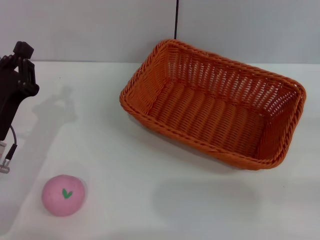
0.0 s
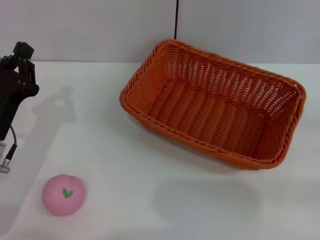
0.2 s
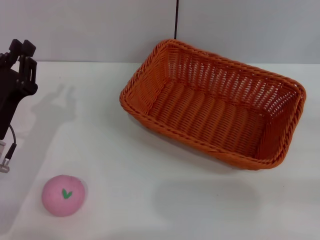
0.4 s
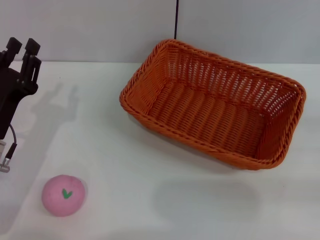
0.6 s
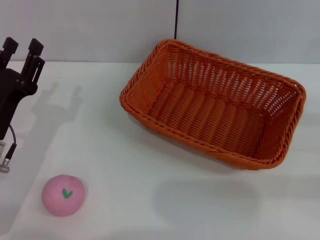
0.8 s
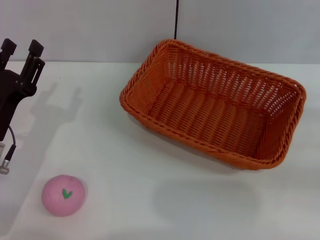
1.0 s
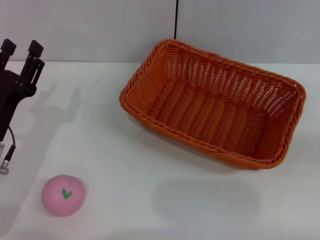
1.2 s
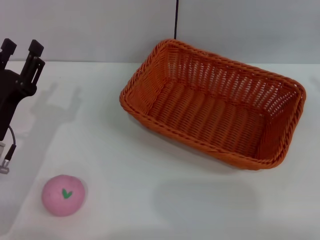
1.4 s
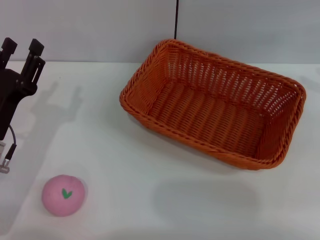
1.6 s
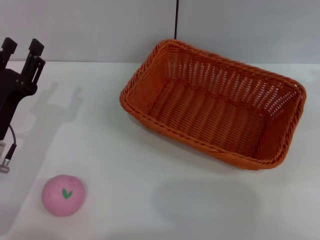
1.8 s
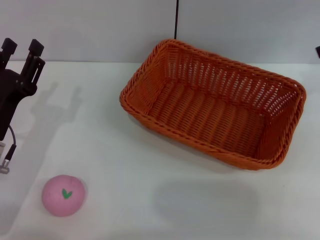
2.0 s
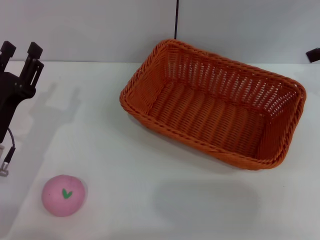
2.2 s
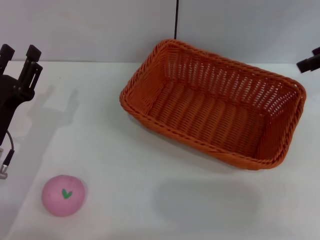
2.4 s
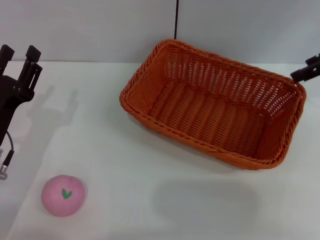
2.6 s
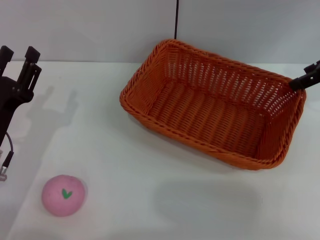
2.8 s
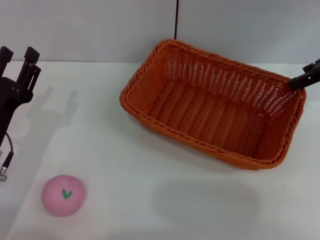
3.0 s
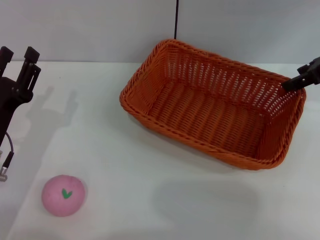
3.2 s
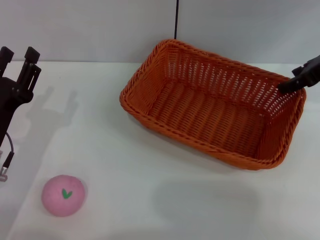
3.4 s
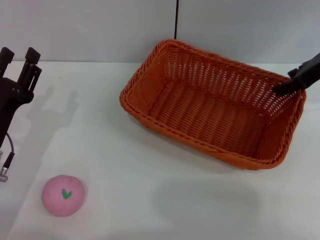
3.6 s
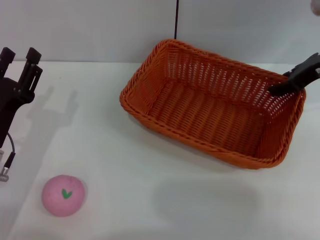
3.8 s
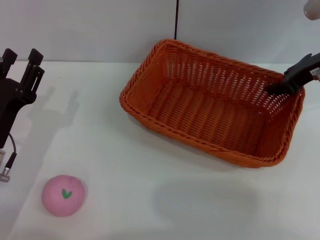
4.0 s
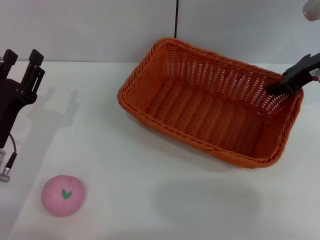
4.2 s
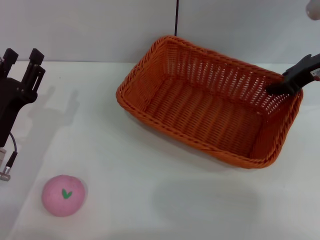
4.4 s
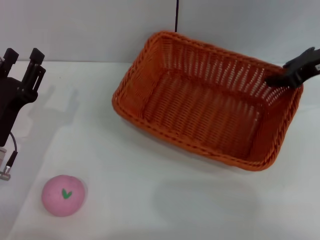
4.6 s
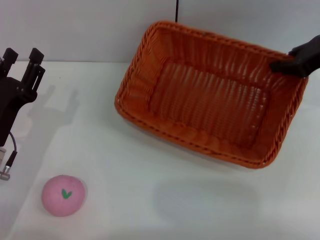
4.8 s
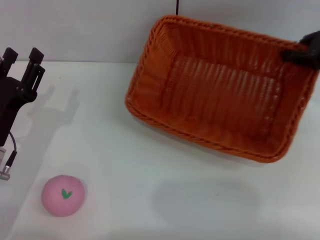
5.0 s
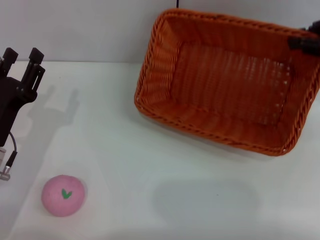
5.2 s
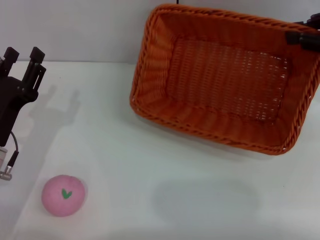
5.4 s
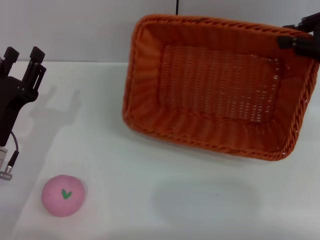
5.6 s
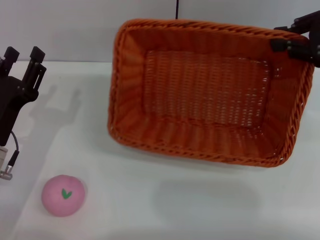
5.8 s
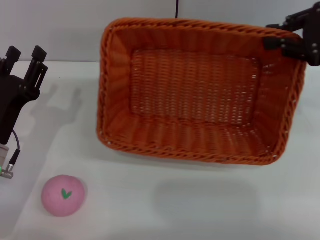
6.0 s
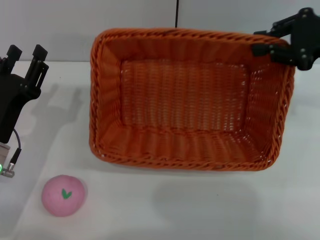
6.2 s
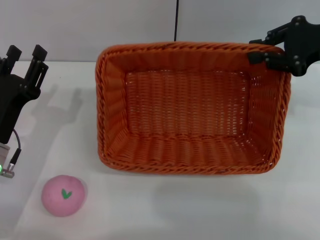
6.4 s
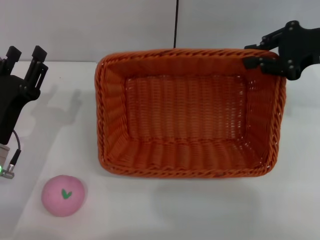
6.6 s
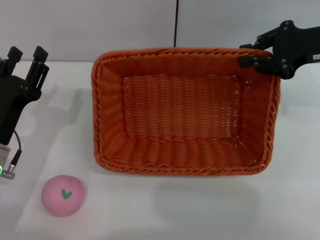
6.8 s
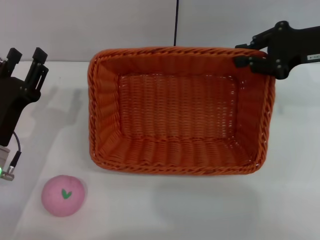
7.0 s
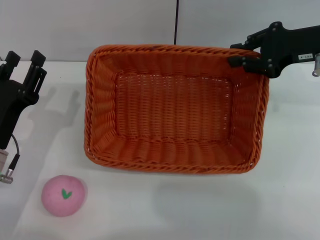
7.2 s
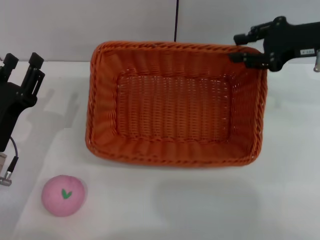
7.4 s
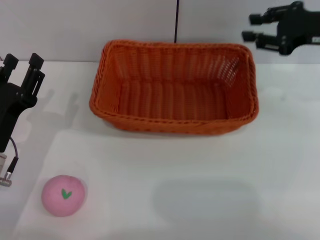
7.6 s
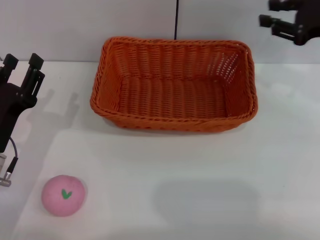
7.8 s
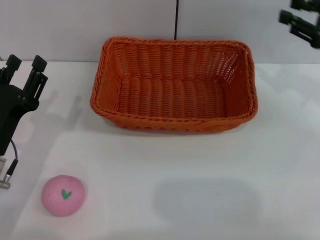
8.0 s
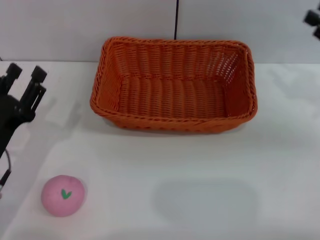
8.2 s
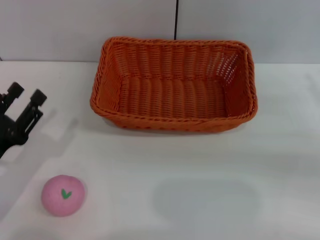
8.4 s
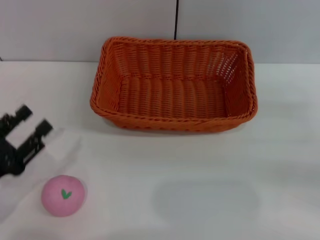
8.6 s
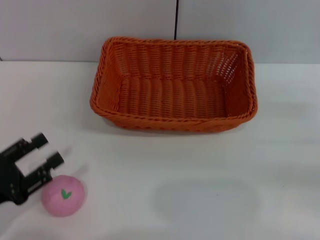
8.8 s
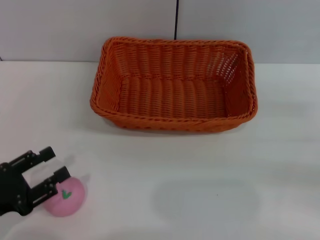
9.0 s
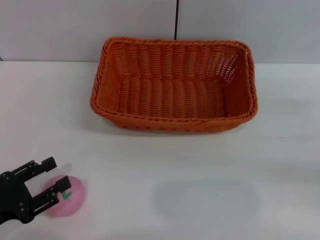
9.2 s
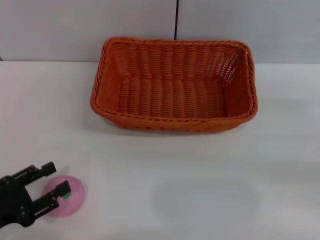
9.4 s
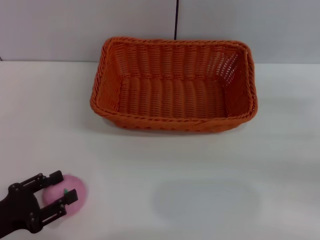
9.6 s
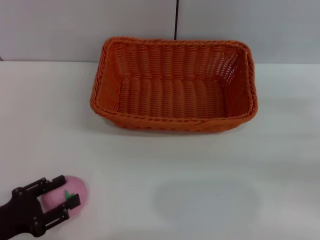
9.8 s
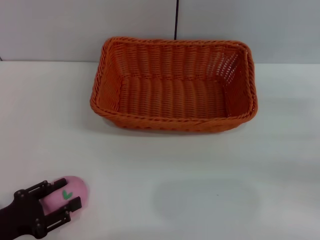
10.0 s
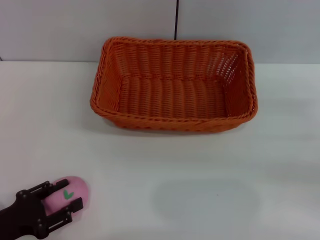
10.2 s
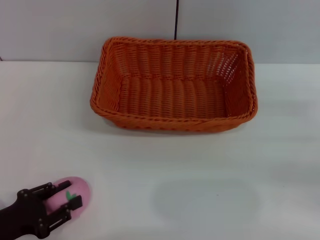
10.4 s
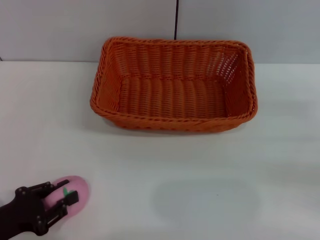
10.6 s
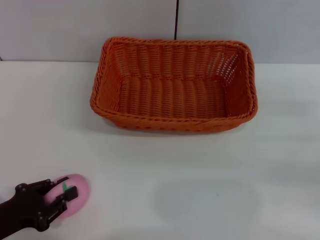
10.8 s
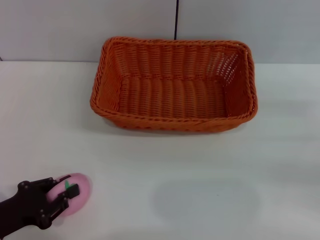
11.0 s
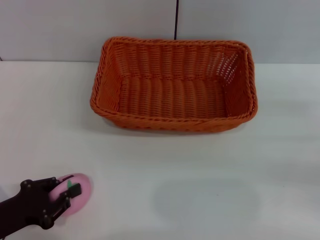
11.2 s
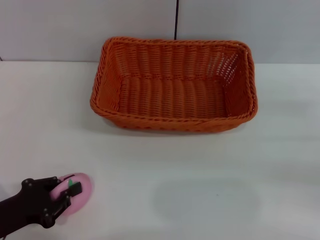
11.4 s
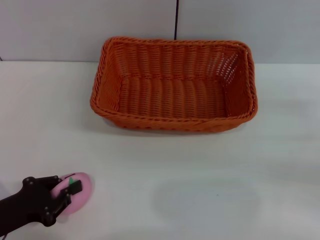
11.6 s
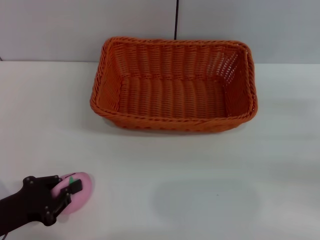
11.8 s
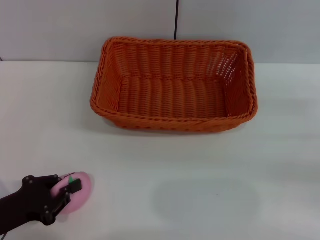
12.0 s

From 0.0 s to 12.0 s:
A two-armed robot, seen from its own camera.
Step, from 0.0 s to 4.6 s: Pick up the light basket with the right gripper.
Step, from 4.8 s to 7.6 s: Place the light basket in the center of view with the right gripper.
From 0.0 s to 1.6 s: The left gripper opens its fingers.
From 1.6 s to 3.0 s: The right gripper is displaced to the left and forward by some 10 cm.
From 3.0 s to 4.4 s: The right gripper closes.
From 4.4 s to 6.0 s: The right gripper shifts by approximately 5 cm.
From 7.6 s to 9.0 s: The left gripper shifts roughly 10 cm backward and to the left, while the right gripper travels backward, to the right and downward by approximately 20 cm.
From 9.0 s to 10.4 s: The grippers move only a little.
From 10.4 s to 12.0 s: The left gripper closes its fingers.

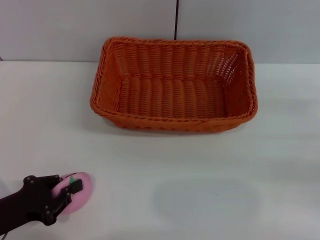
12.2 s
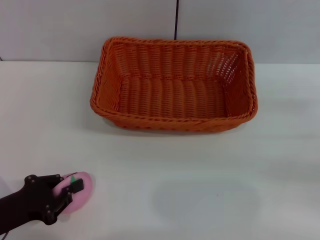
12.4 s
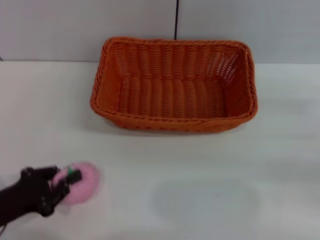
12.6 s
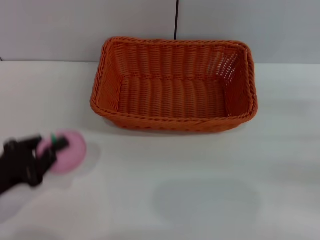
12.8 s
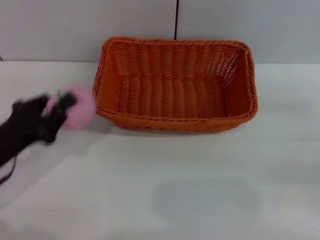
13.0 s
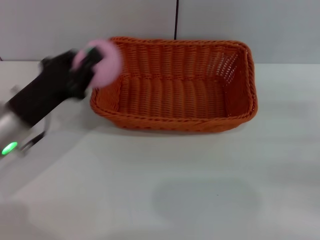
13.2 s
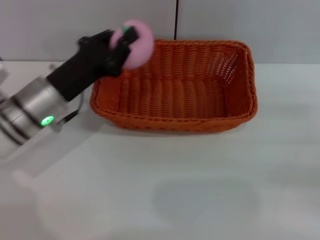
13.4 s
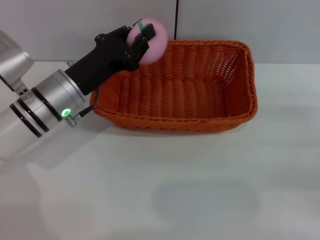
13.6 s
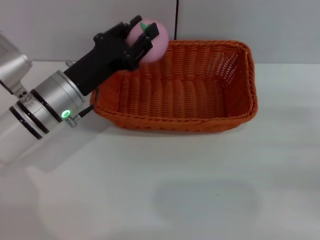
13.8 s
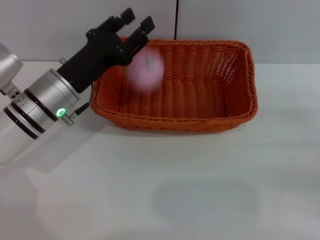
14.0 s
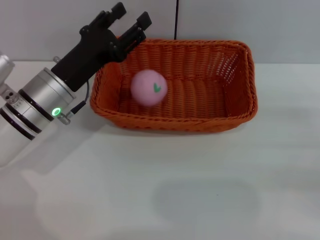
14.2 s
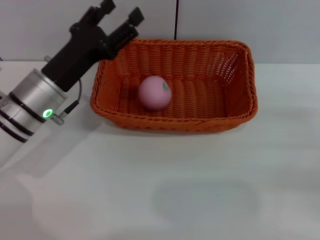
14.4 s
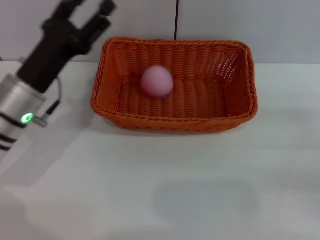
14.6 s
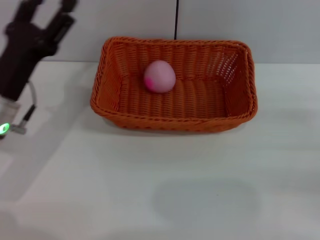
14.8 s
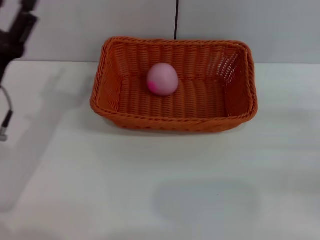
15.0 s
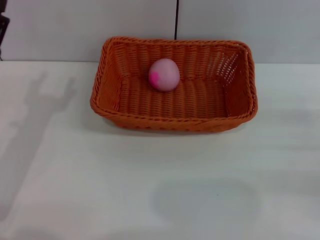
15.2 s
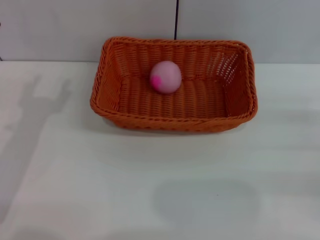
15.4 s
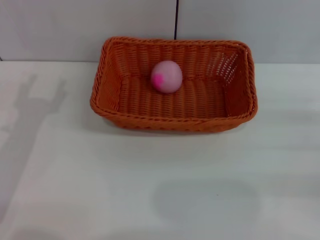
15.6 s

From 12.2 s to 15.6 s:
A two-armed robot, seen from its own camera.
Step, from 12.8 s to 14.2 s: Place the peach into the basket with the left gripper.
From 12.2 s to 13.8 s: The left gripper is displaced forward, to the right and upward by roughly 20 cm.
From 13.8 s to 15.6 s: The left gripper is displaced to the left and backward by some 15 cm, and opens its fingers.

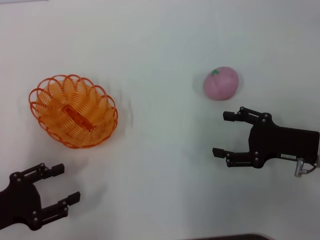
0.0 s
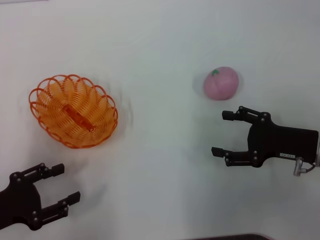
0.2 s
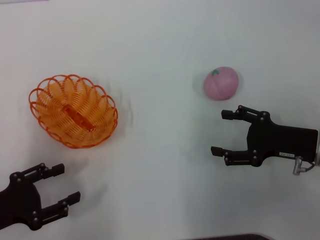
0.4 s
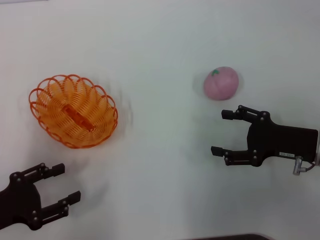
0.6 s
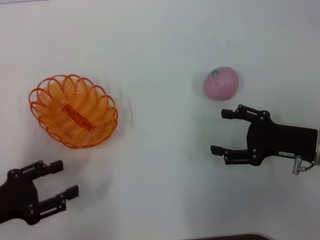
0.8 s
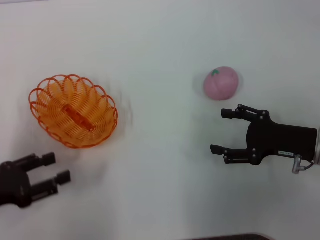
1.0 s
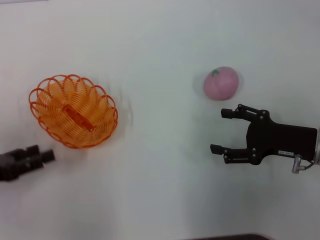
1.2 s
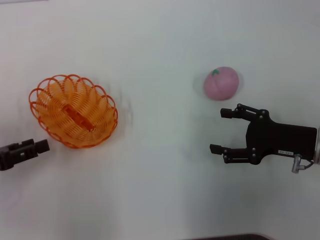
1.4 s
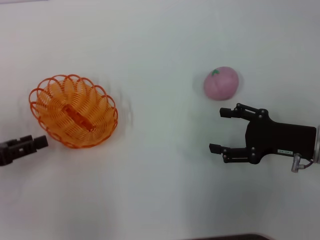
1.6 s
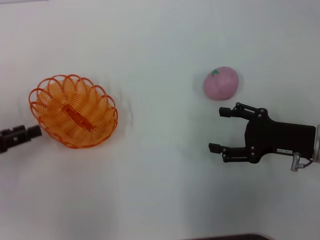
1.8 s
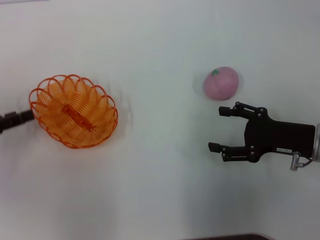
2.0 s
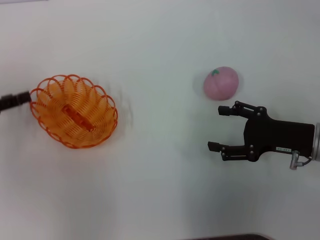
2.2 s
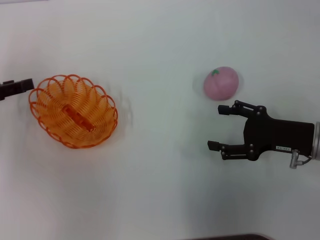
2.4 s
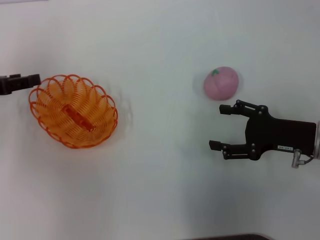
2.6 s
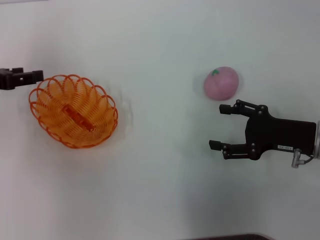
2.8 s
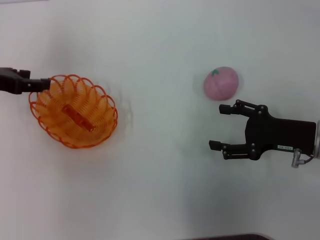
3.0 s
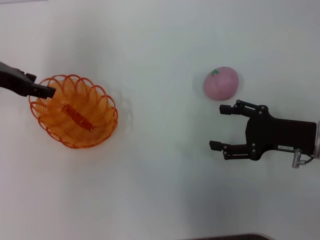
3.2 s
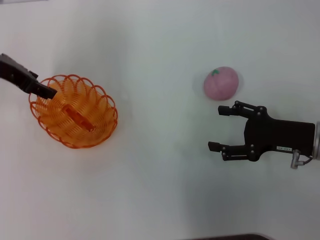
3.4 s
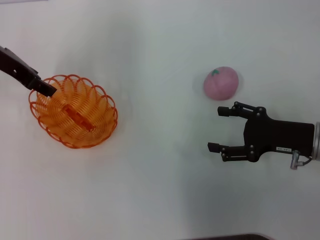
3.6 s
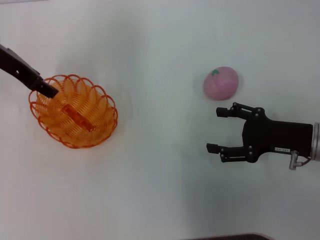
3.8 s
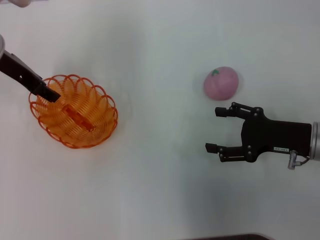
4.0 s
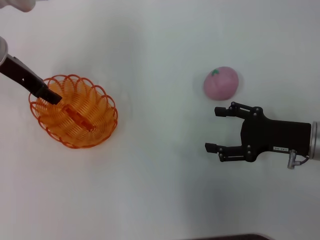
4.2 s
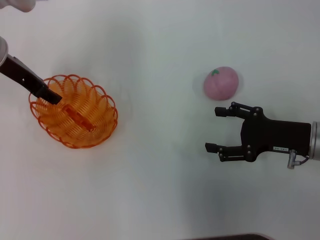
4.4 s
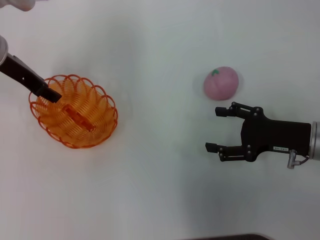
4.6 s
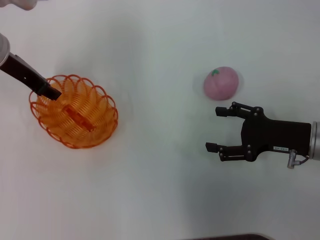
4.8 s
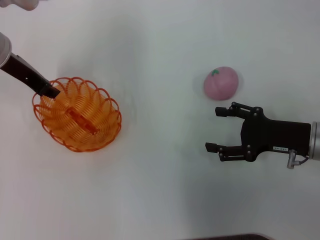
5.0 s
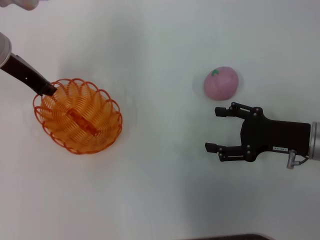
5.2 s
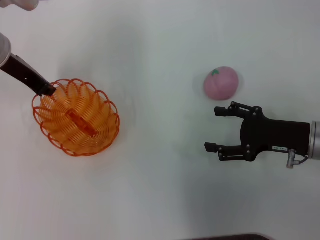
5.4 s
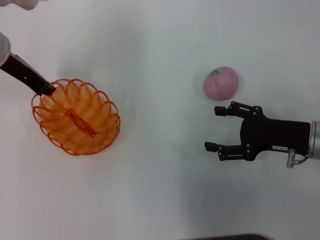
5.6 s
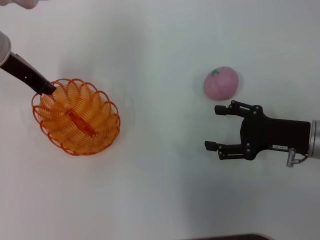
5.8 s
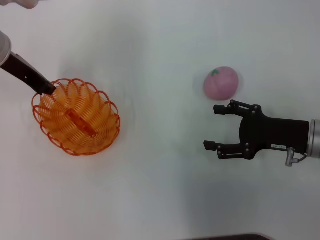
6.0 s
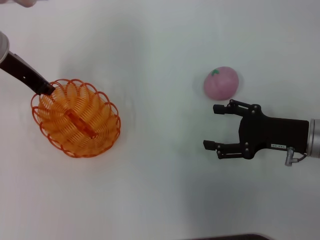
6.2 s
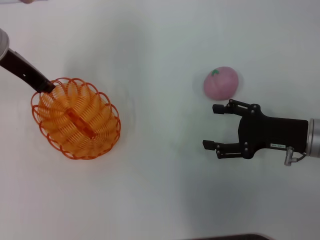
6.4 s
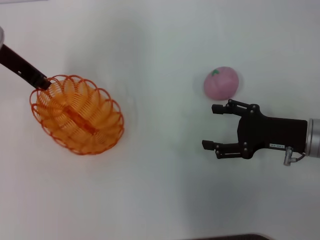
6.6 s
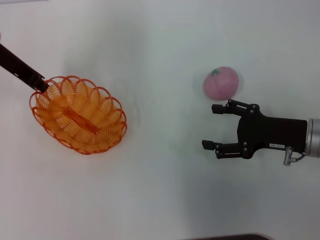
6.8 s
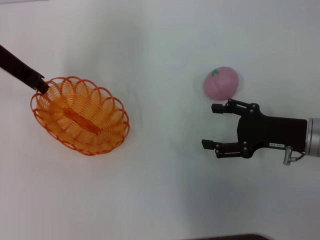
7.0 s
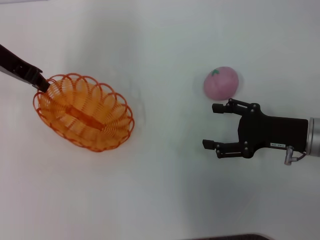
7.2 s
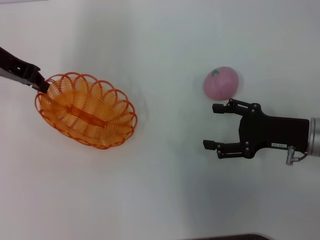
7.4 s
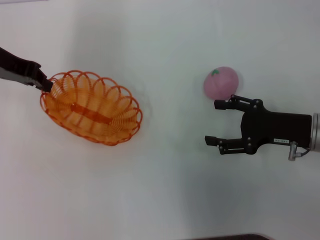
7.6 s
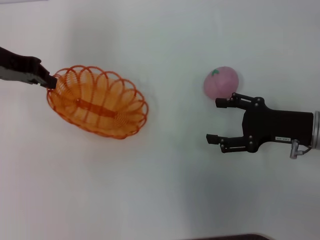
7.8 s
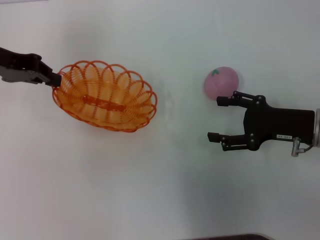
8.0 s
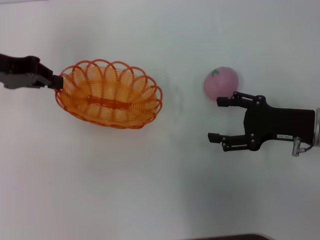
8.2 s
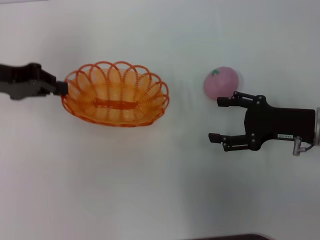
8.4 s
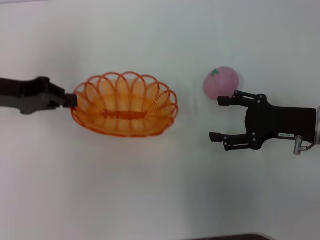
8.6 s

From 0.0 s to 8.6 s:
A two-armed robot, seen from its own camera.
Step, from 0.0 s to 6.0 s: Grab the basket with your left arm.
From 0.0 s to 1.4 s: The left gripper moves forward, roughly 5 cm.
From 1.4 s to 2.8 s: The left gripper shifts some 15 cm forward and upward.
From 2.8 s to 4.4 s: The left gripper heads to the right and forward, covering about 10 cm.
From 4.4 s to 5.8 s: The left gripper closes up.
From 5.8 s to 7.2 s: The grippers move only a little.
From 7.2 s to 8.6 s: The left gripper goes approximately 10 cm backward and downward.
